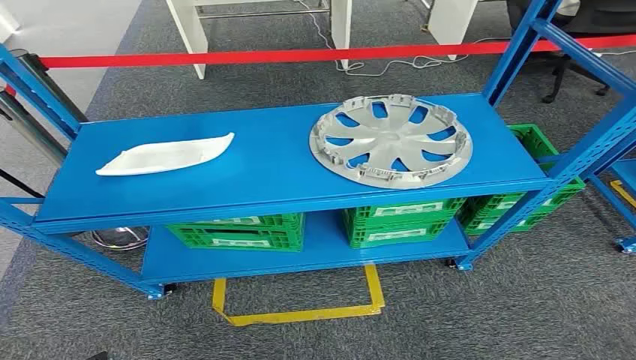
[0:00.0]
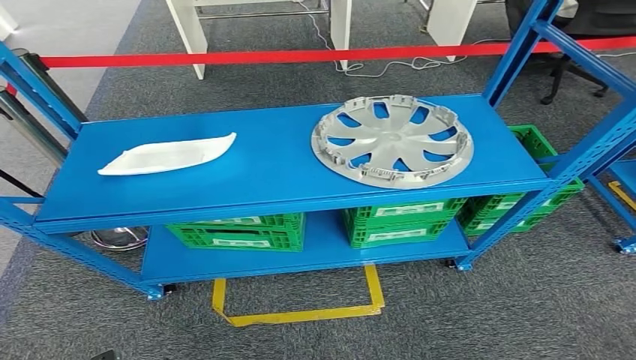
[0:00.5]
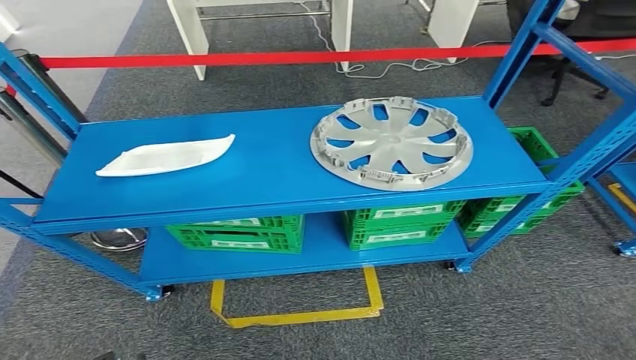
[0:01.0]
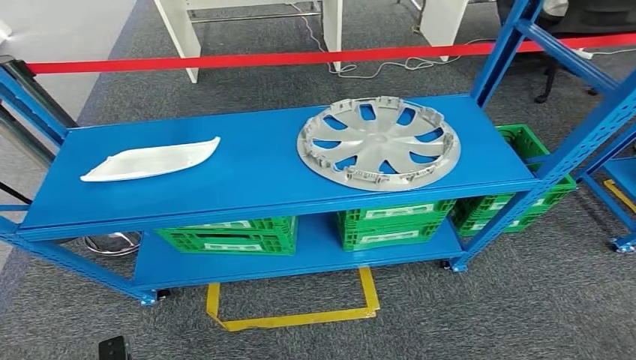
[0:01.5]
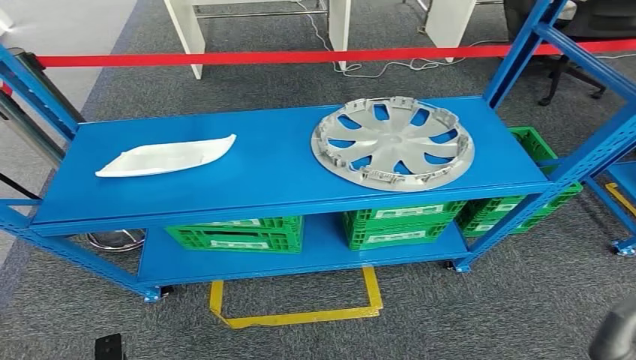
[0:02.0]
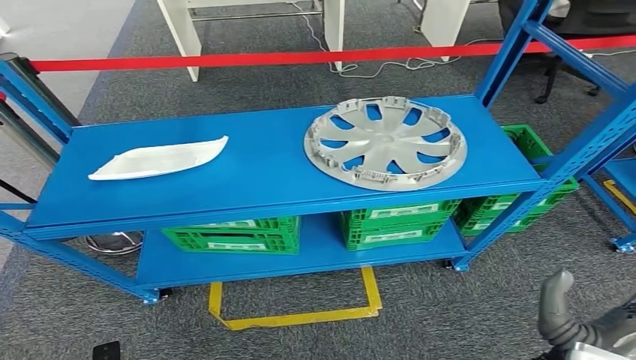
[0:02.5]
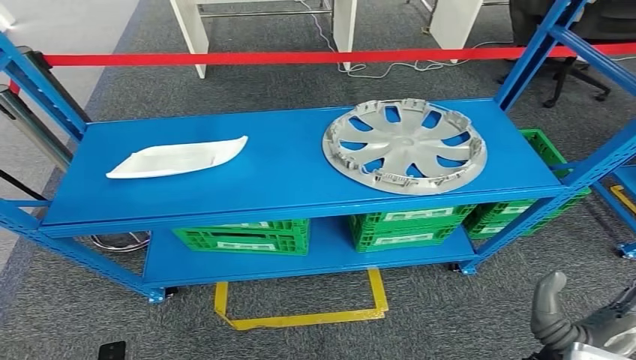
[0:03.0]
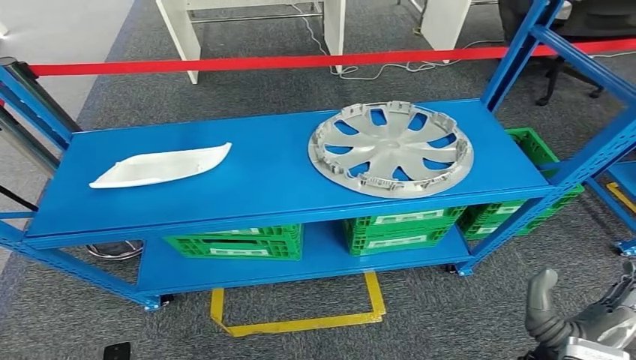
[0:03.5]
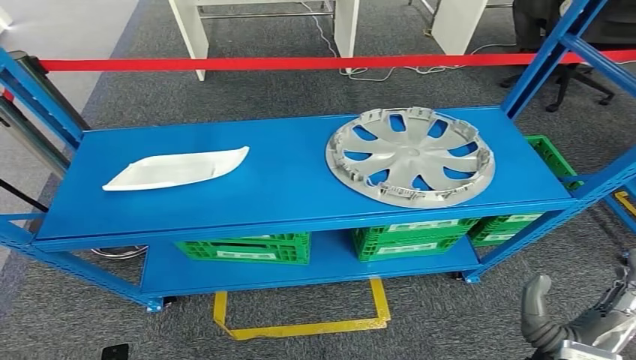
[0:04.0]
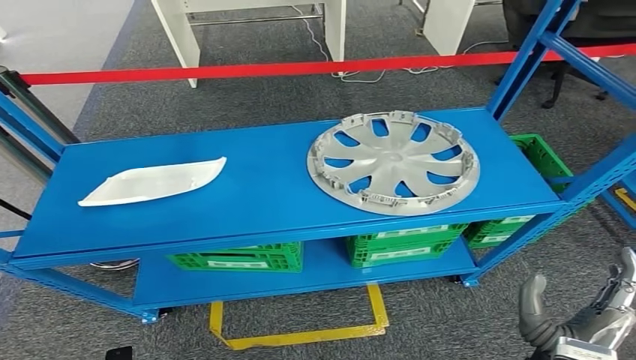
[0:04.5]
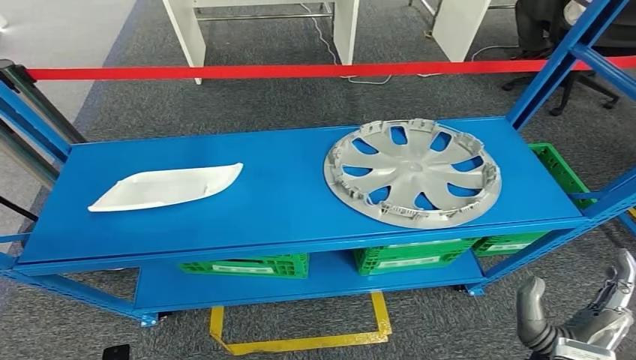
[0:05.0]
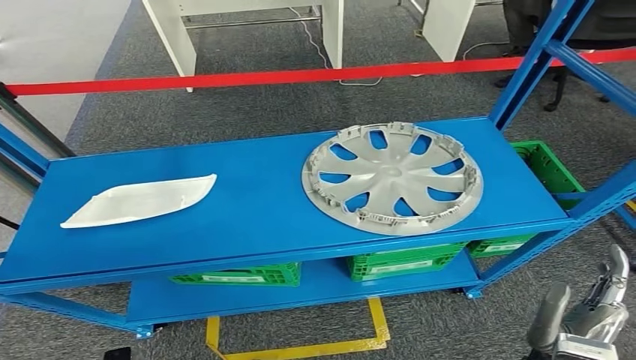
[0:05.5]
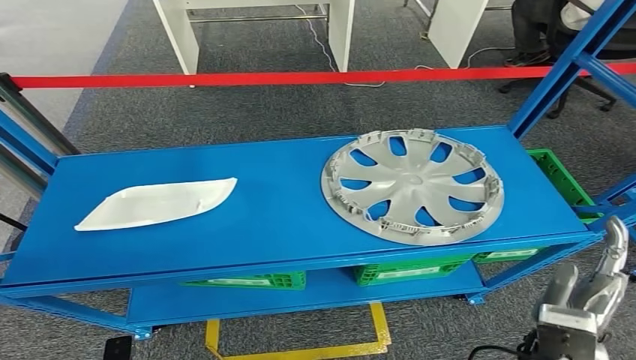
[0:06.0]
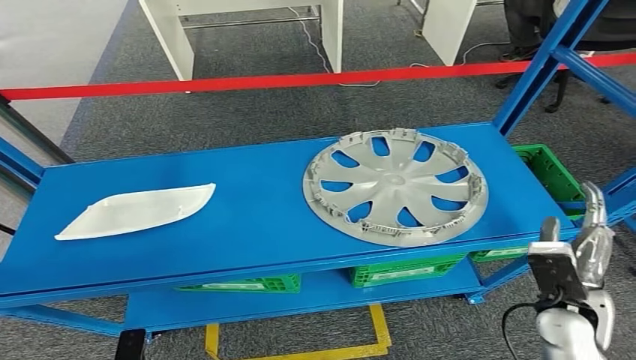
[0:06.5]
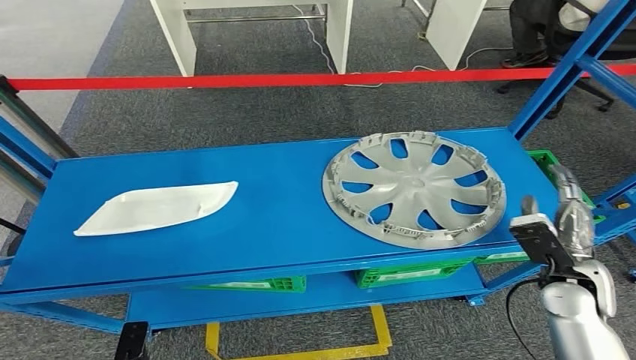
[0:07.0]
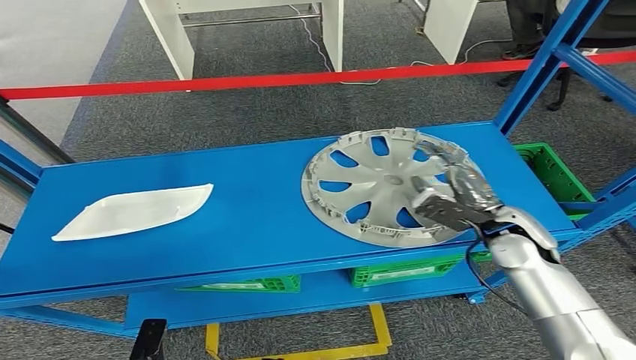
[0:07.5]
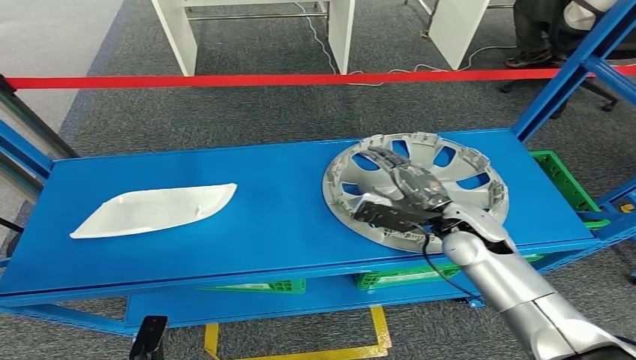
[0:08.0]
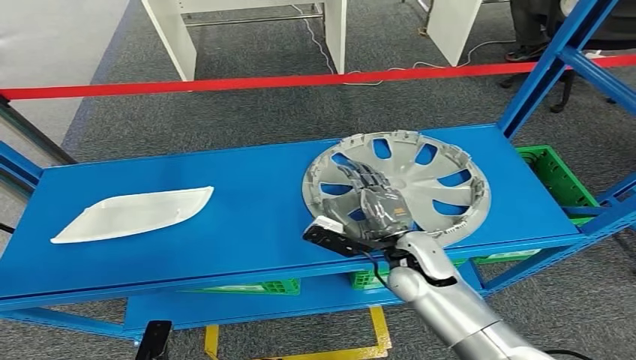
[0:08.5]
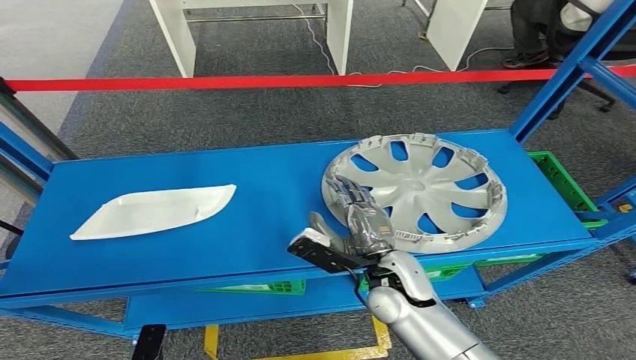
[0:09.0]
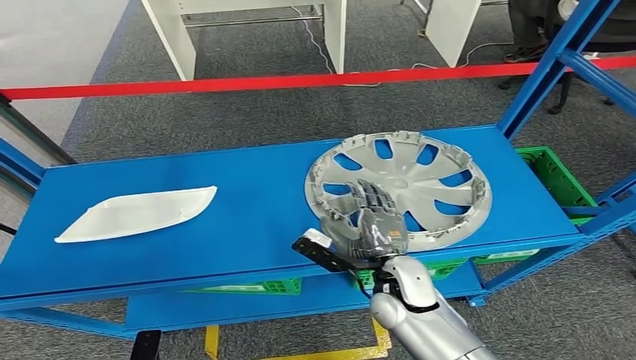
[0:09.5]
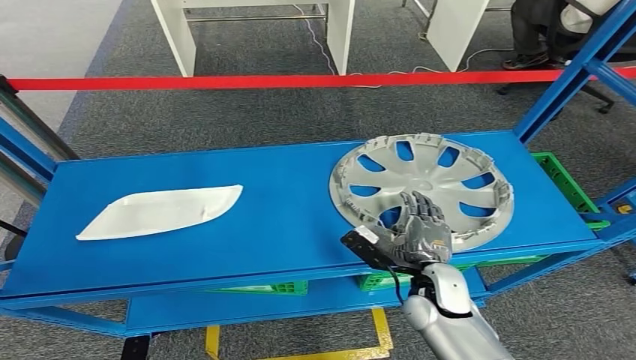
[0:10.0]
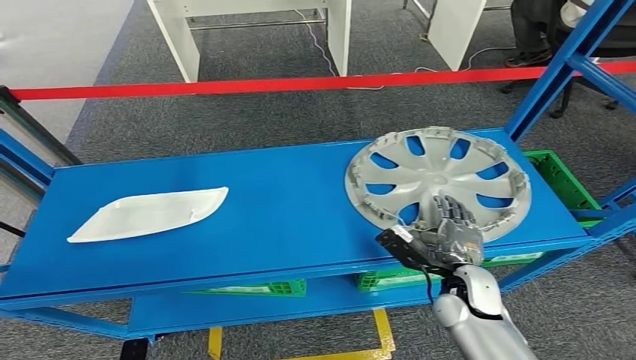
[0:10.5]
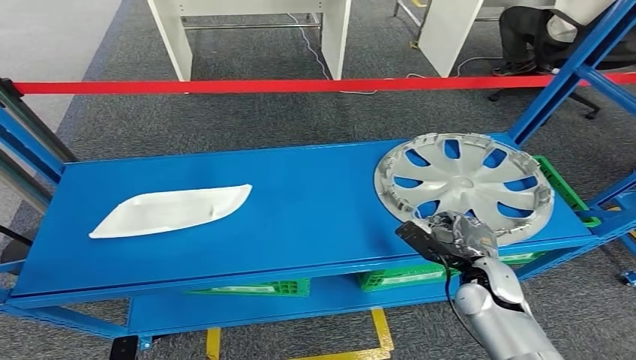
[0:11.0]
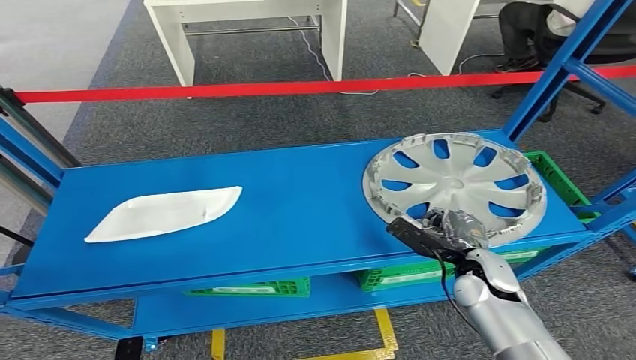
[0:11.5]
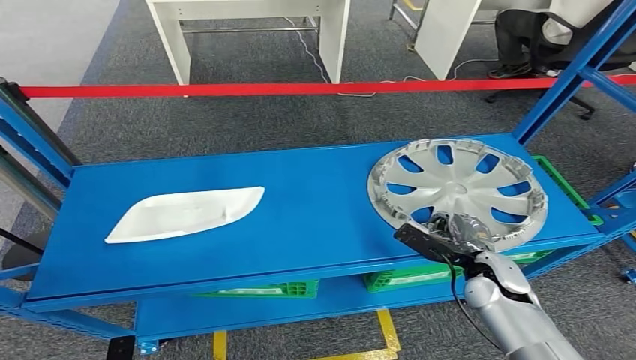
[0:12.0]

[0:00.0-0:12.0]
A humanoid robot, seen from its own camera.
0:08.0 to 0:10.0: The right hand goes approximately 15 cm backward, downward and to the left.

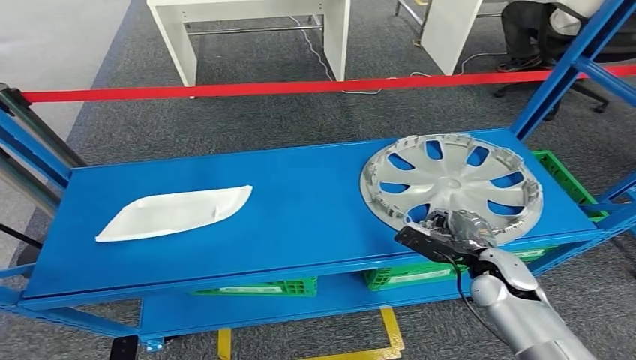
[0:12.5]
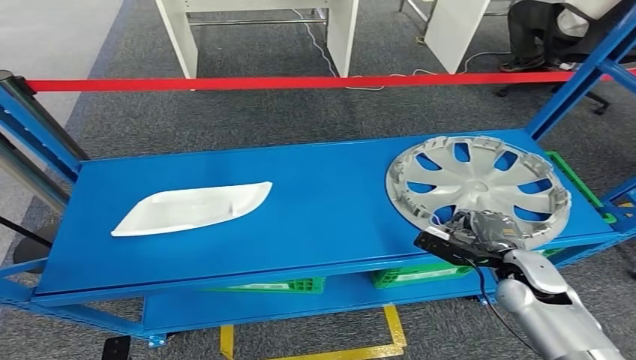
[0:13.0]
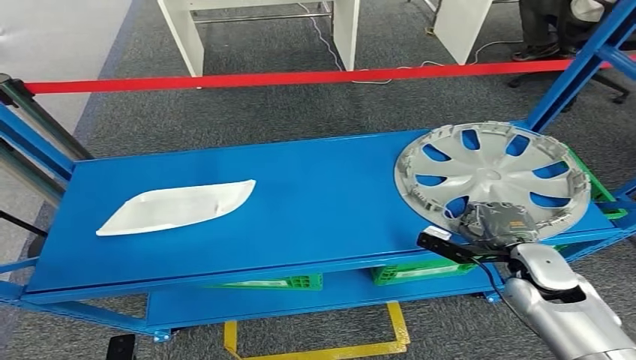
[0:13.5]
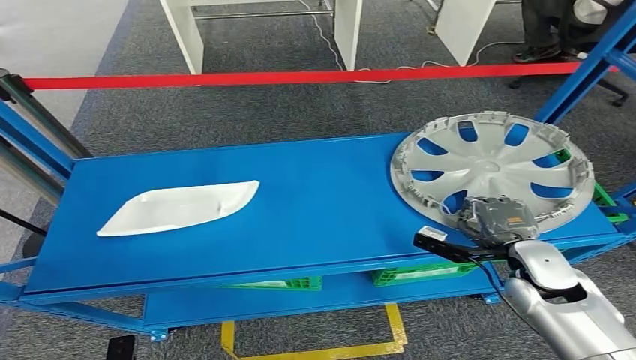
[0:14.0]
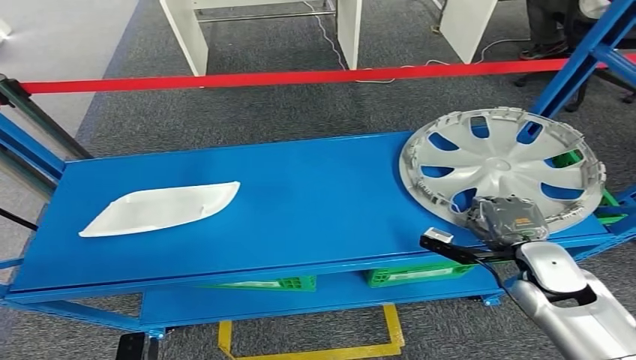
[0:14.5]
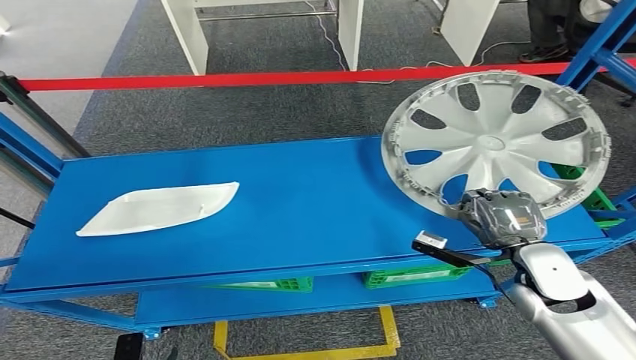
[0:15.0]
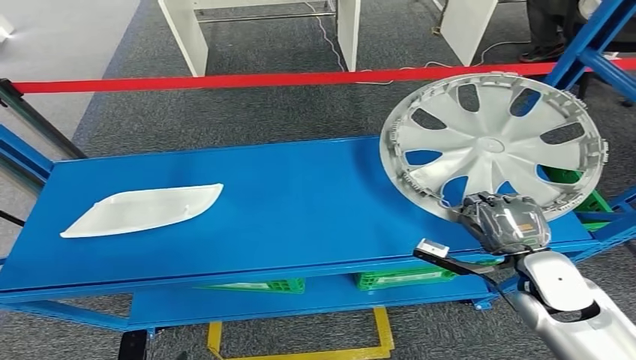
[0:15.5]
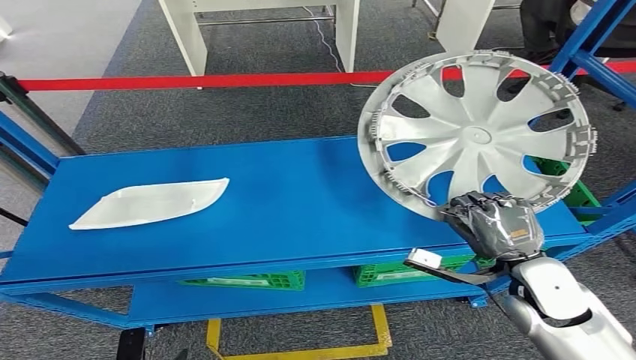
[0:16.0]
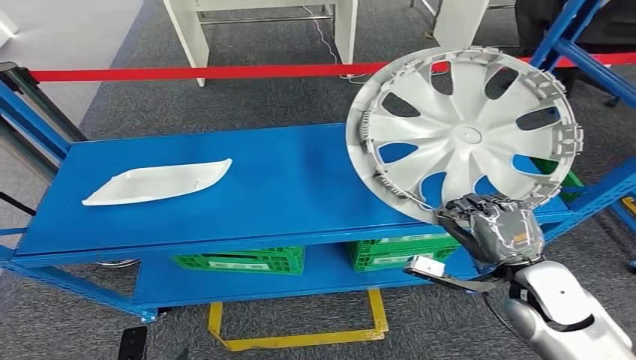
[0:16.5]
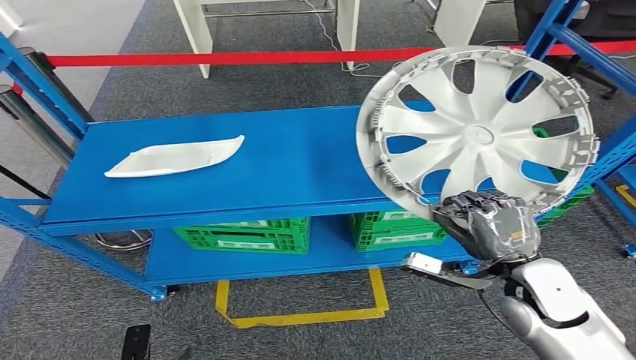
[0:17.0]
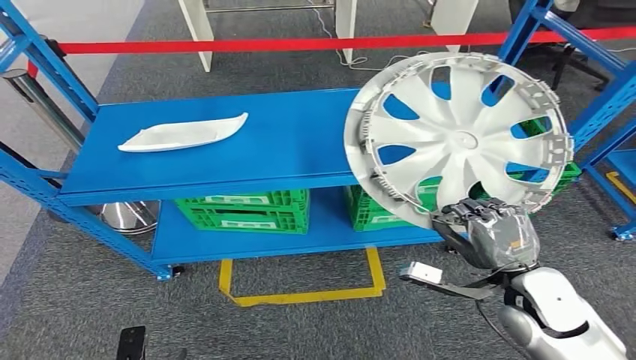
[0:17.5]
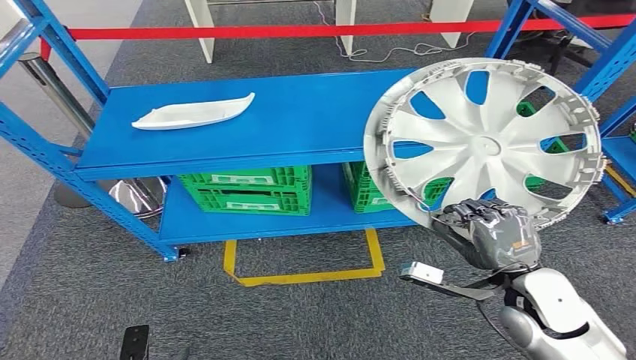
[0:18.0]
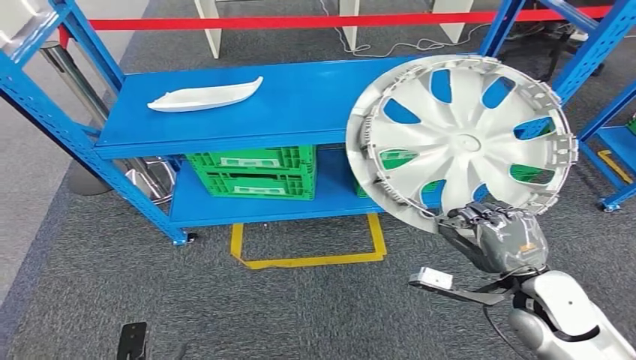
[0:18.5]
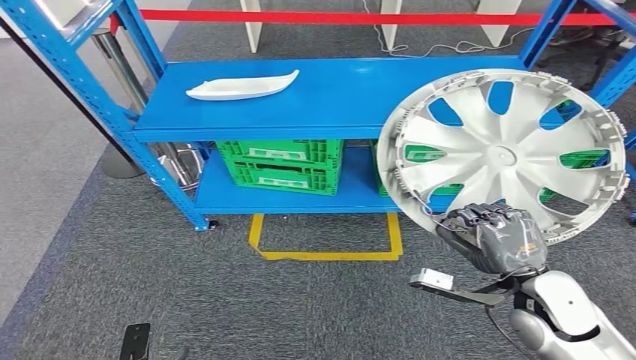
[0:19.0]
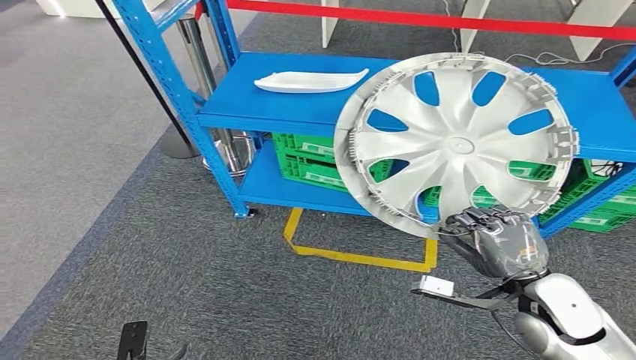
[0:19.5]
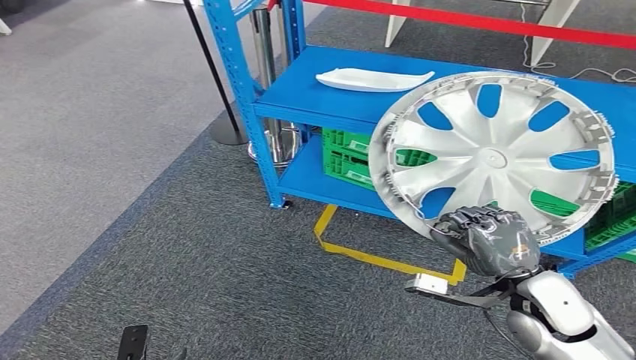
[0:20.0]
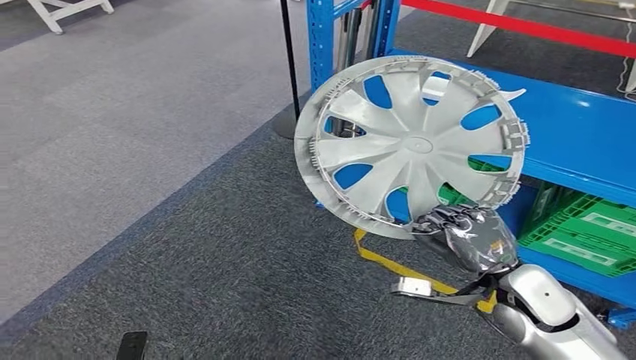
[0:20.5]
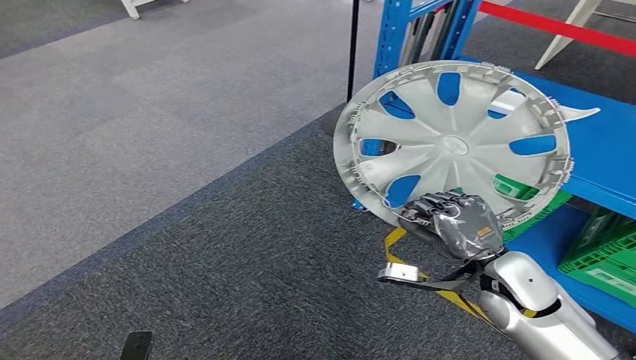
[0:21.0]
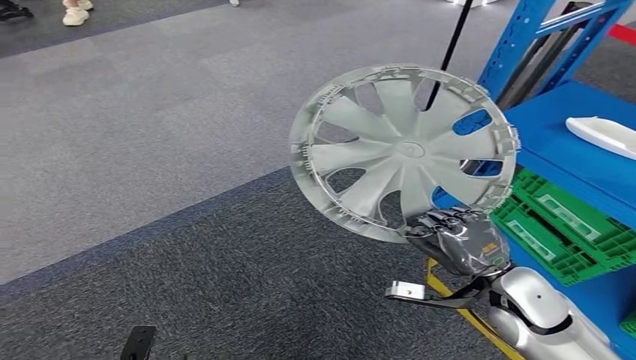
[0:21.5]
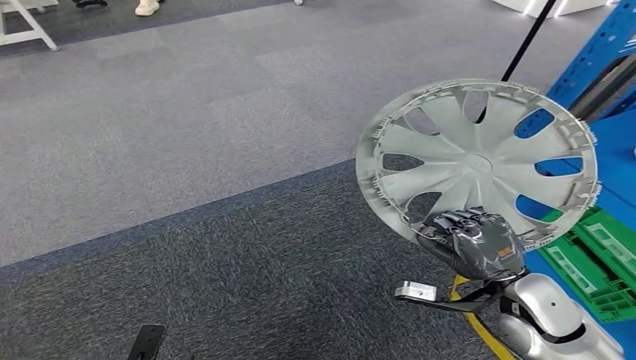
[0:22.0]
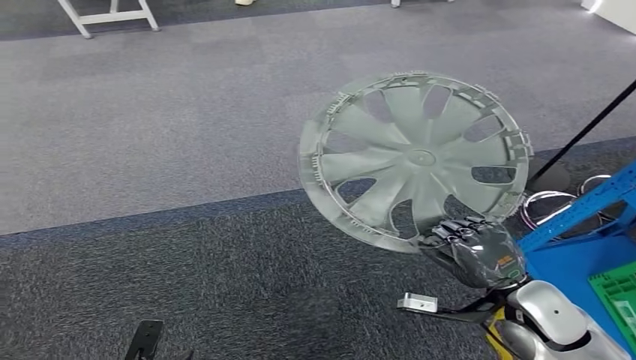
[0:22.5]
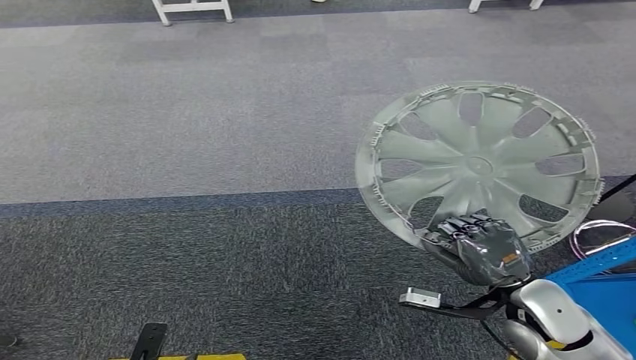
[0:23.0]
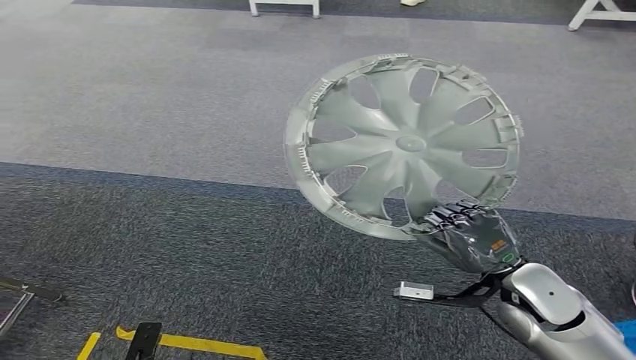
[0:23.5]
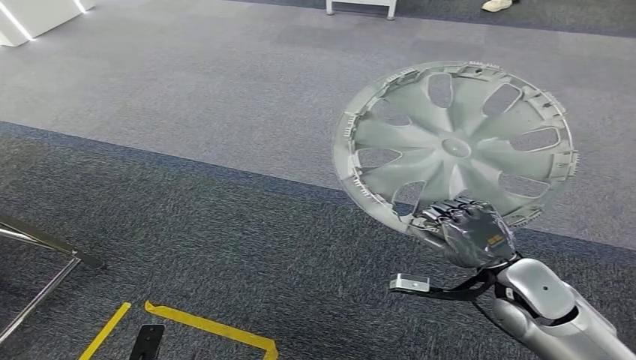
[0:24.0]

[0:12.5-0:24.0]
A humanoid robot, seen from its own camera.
Step, 0:12.5 to 0:18.5: Pick up the small component from the shelf.
